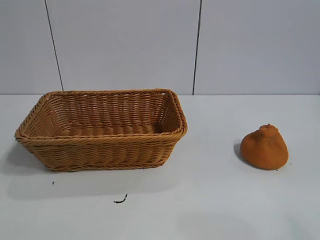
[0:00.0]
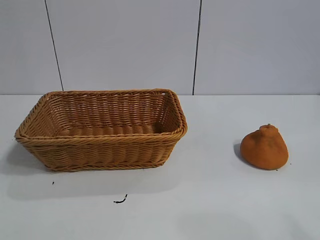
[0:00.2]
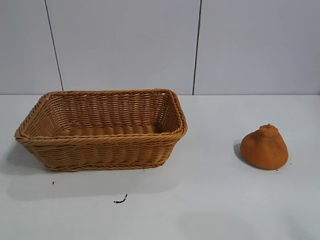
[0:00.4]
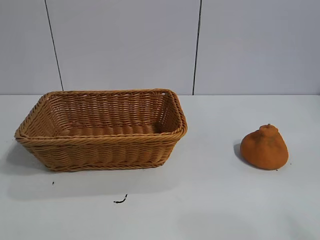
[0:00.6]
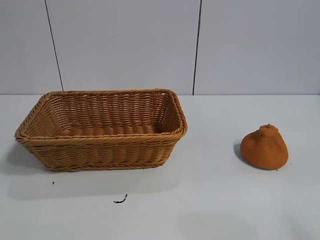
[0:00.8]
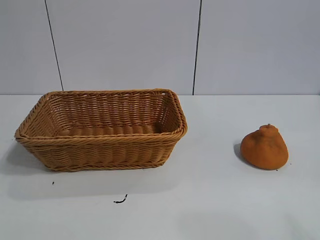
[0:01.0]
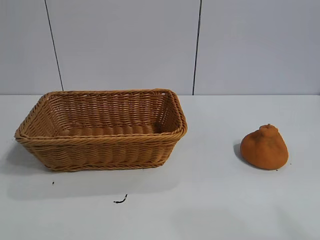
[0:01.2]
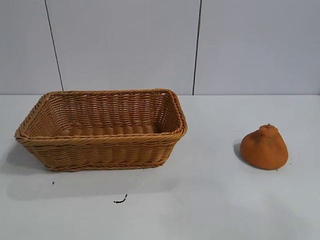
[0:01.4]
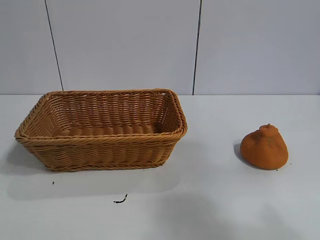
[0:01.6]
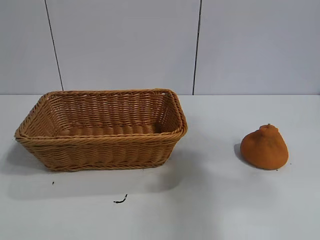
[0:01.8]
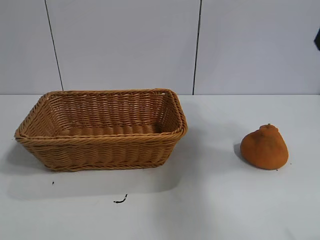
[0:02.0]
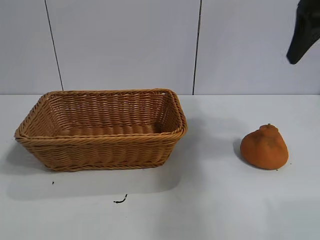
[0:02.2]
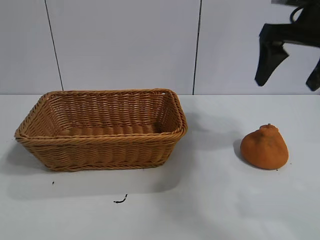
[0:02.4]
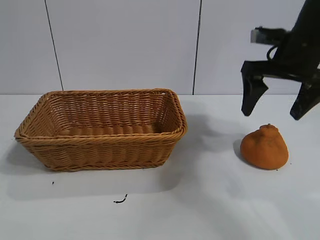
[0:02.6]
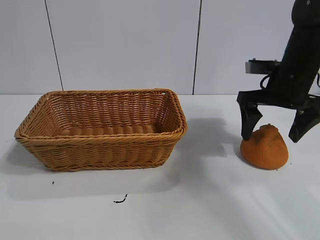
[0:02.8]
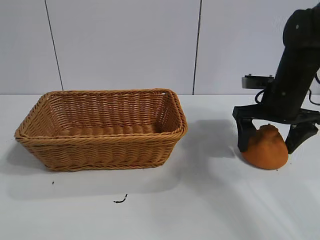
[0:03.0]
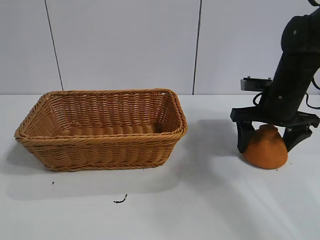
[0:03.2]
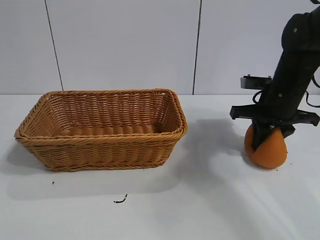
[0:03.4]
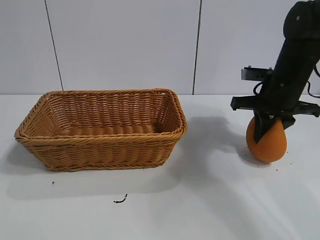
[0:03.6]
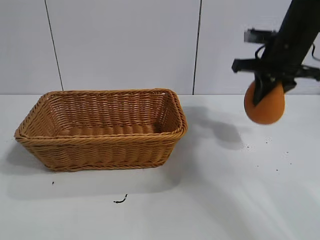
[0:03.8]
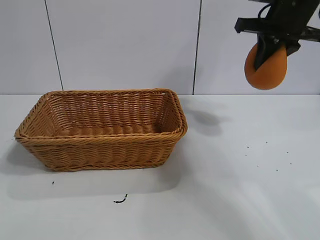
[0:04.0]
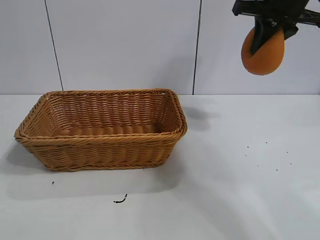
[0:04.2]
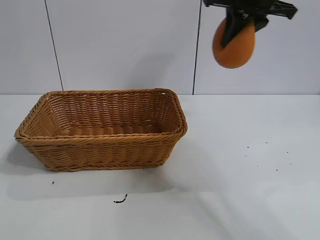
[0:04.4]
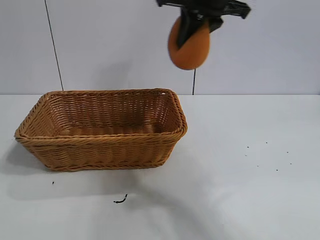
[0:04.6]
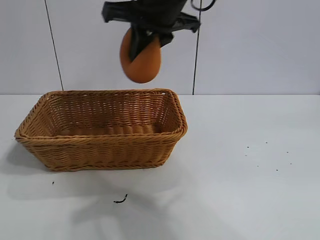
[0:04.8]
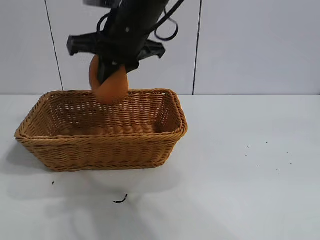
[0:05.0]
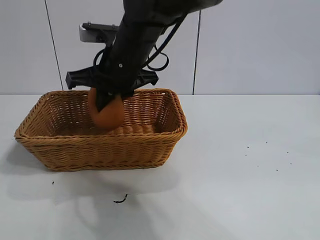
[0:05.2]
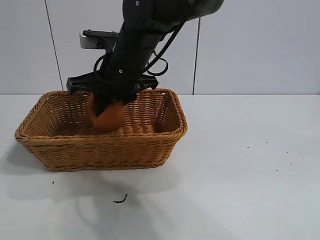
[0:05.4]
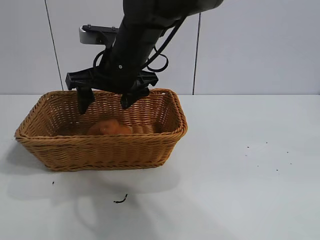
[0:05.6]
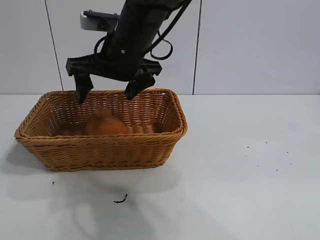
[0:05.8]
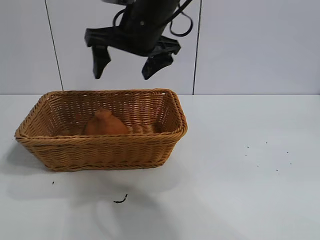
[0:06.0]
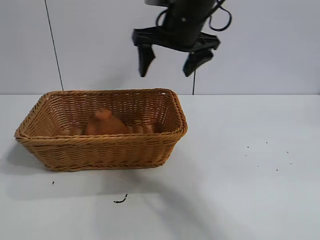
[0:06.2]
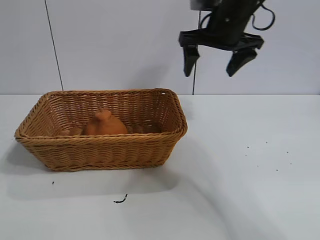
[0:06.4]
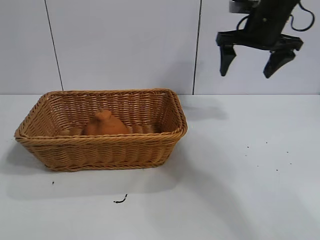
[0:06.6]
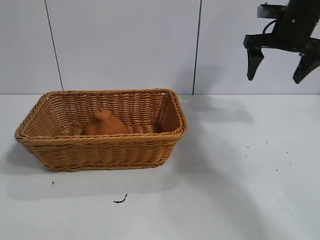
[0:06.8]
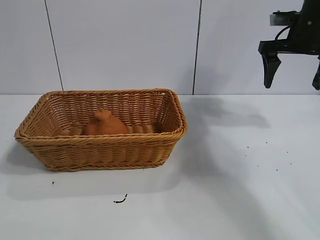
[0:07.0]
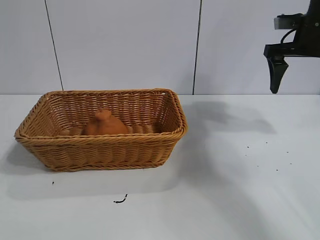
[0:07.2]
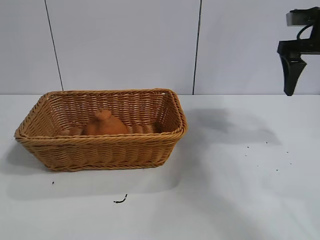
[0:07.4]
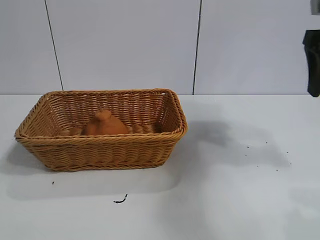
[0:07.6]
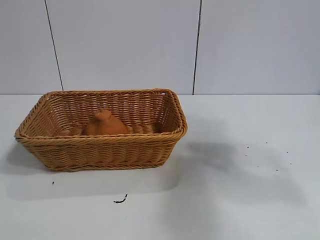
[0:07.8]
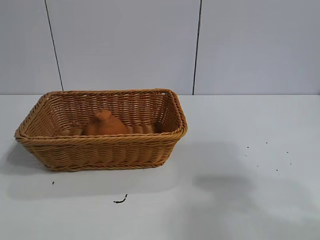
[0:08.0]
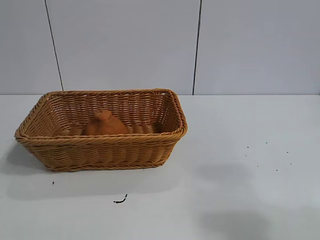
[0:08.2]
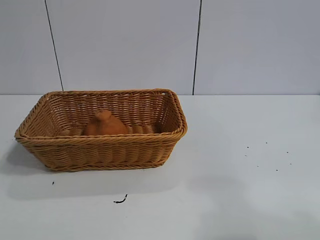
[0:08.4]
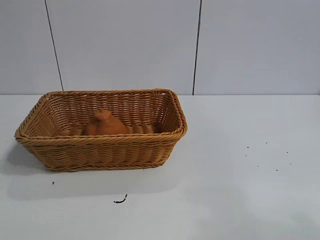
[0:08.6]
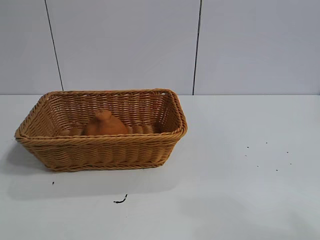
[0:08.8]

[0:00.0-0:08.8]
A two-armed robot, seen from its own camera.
Task of the whole recording: pick up the orange and put it into the basket.
Step, 0:01.0 to 0:03.2: Grasp the orange with right gripper.
Step, 0:03.6 to 0:05.4: Place the orange in the basket with right gripper.
